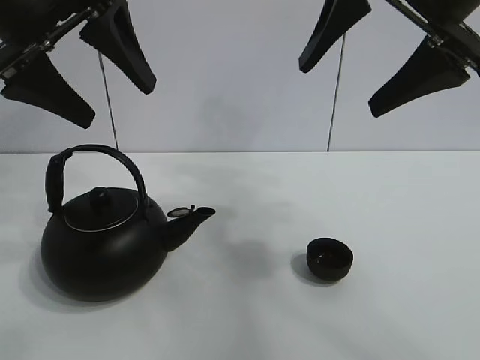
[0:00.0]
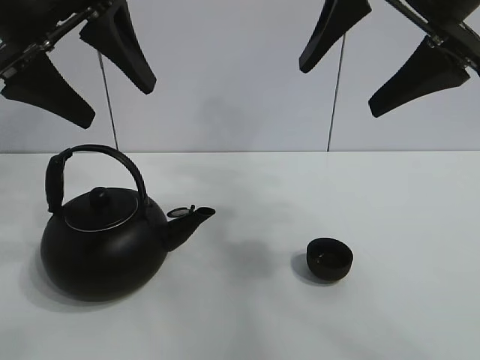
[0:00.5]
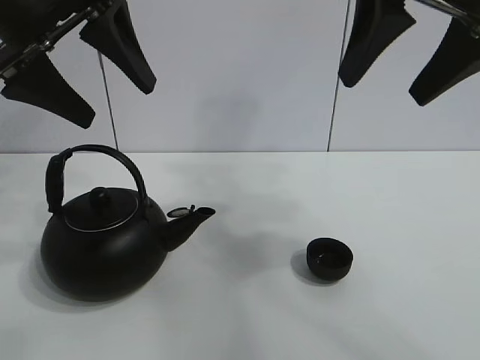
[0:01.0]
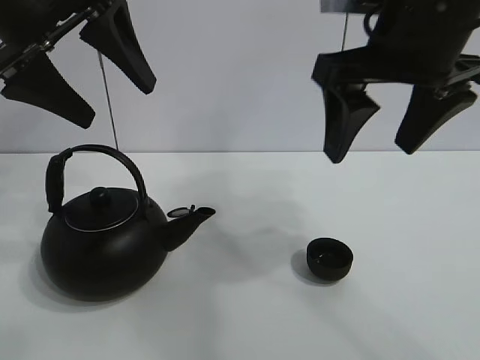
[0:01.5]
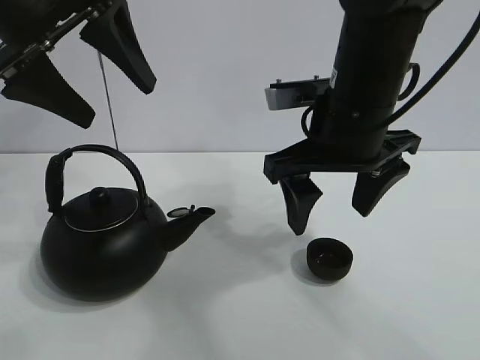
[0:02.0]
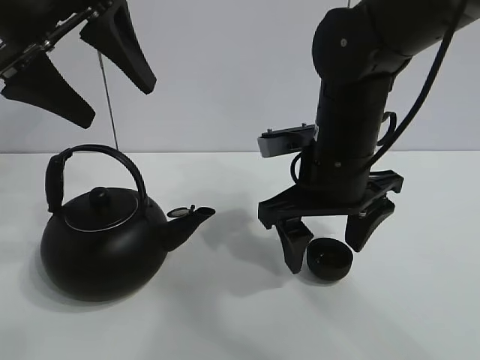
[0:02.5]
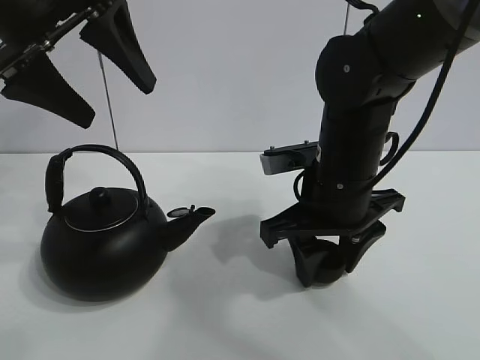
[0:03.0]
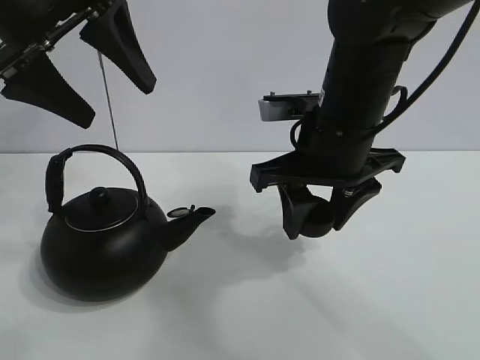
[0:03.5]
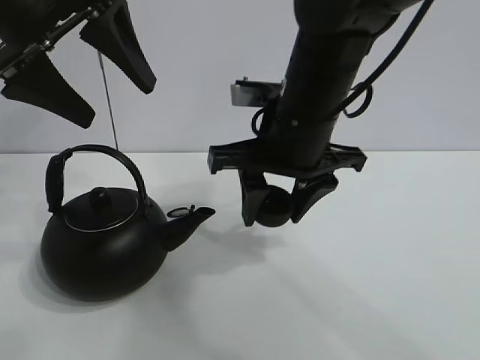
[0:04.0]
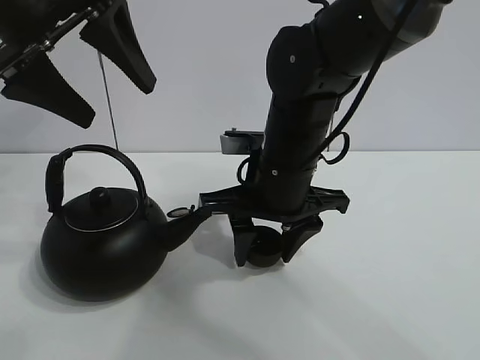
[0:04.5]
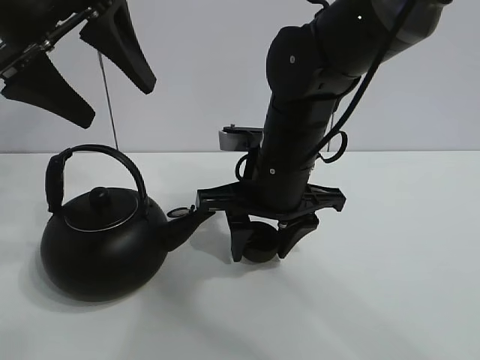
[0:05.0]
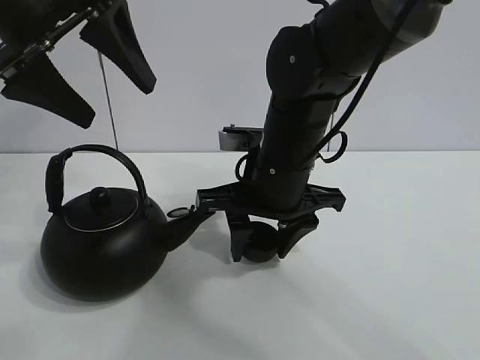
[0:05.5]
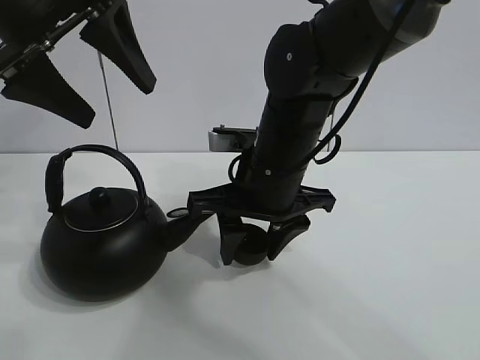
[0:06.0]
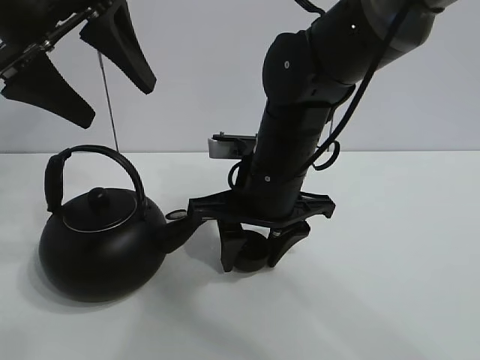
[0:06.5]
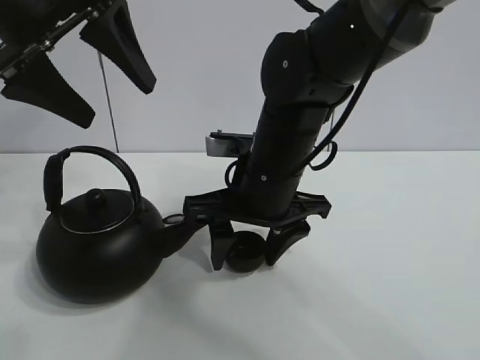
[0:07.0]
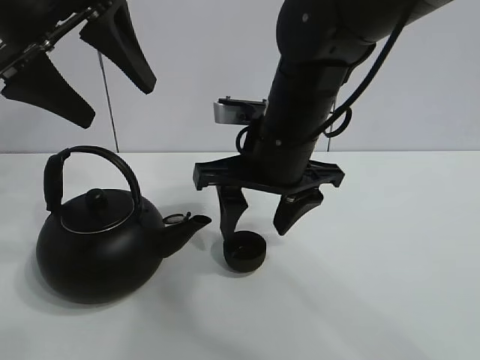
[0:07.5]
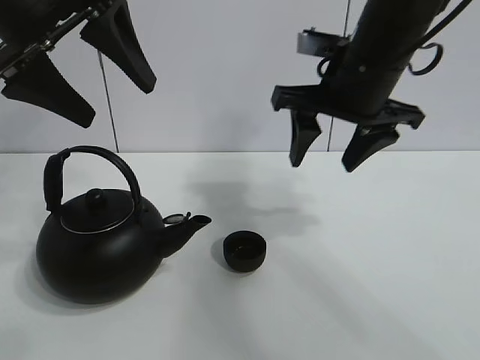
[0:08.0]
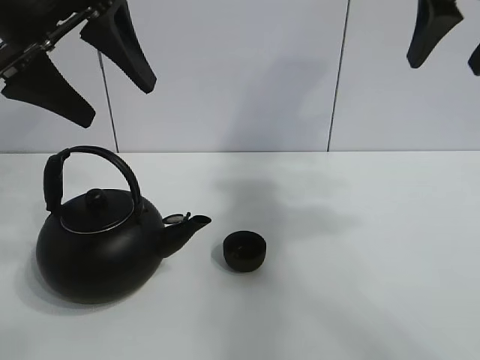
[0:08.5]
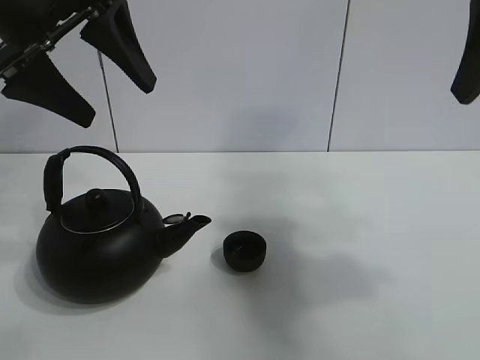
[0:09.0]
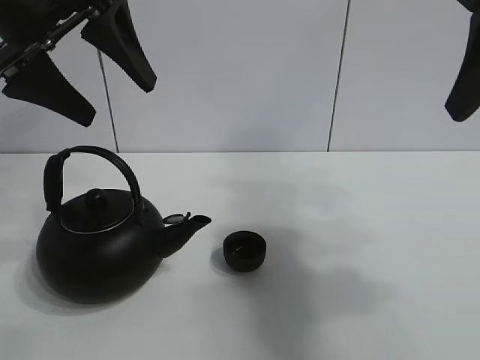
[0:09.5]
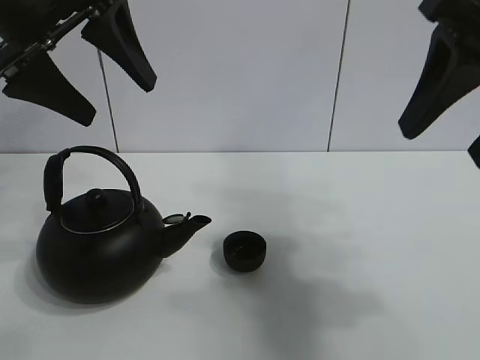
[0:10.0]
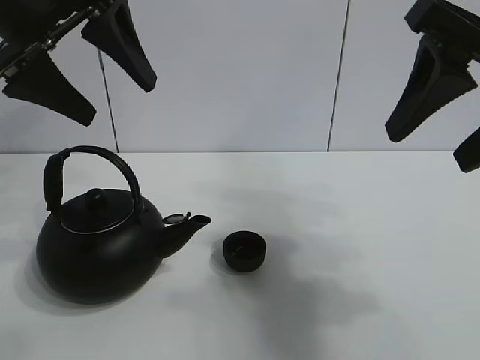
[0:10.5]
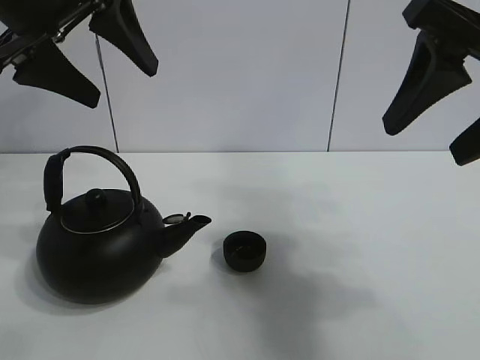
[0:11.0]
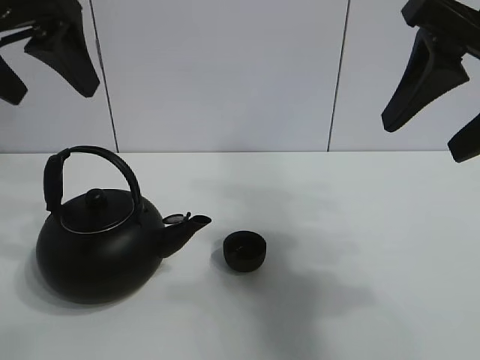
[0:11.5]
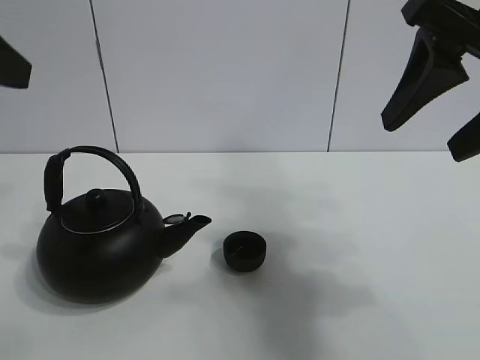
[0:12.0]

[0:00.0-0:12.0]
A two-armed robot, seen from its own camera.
Task of the whole recording: pour tea into the teacup.
Step, 0:00.0 to 0:03.0: Pick up the teacup with the right gripper.
Step, 0:03.5 to 0:07.0: Place the teacup in the center of view with the right gripper.
0:02.0 to 0:04.0: The right gripper closes up.
0:04.0 to 0:06.0: The right gripper travels downward by some 5 cm.
0:06.0 to 0:08.0: The right gripper travels upward and to the right by roughly 10 cm, and opens up.
0:08.0 to 0:10.0: The right gripper travels backward, to the right and upward by some 20 cm.
0:10.0 to 0:12.0: The left gripper is displaced backward and to the left by approximately 10 cm.

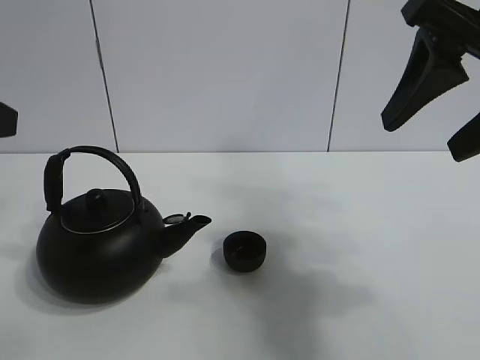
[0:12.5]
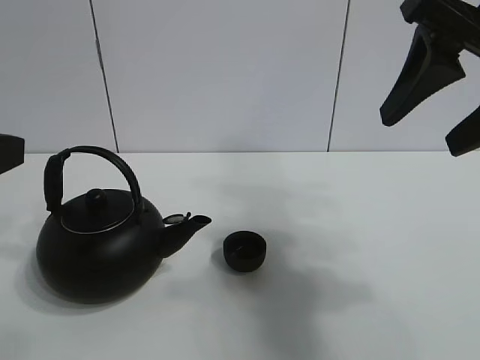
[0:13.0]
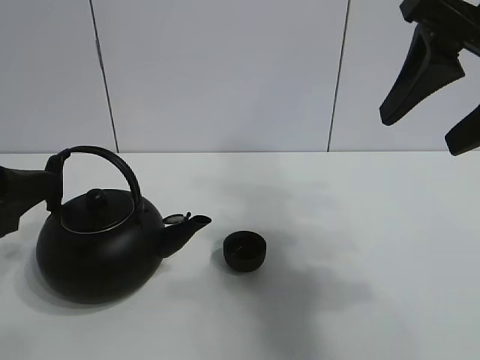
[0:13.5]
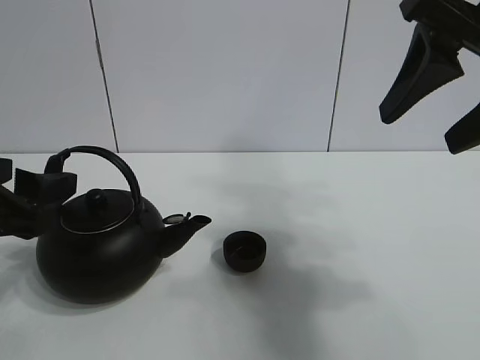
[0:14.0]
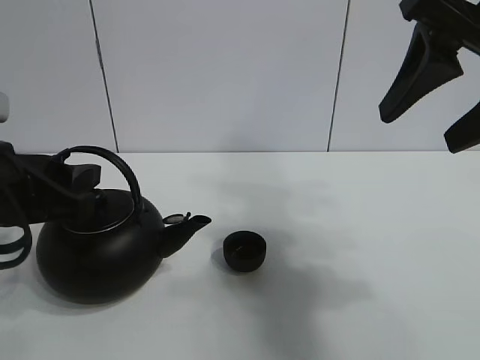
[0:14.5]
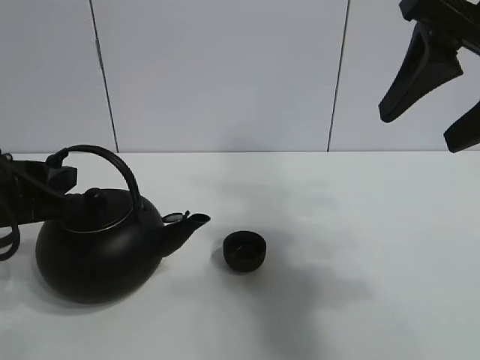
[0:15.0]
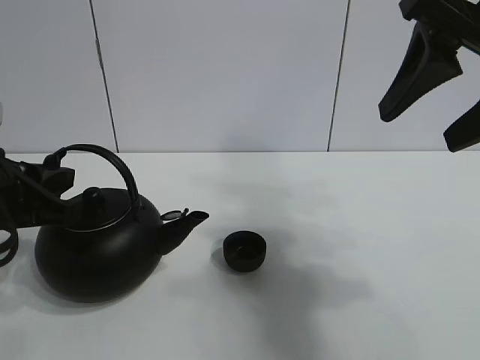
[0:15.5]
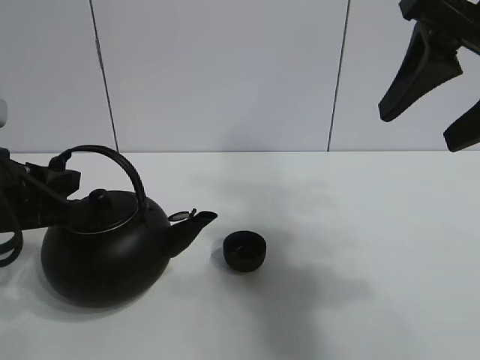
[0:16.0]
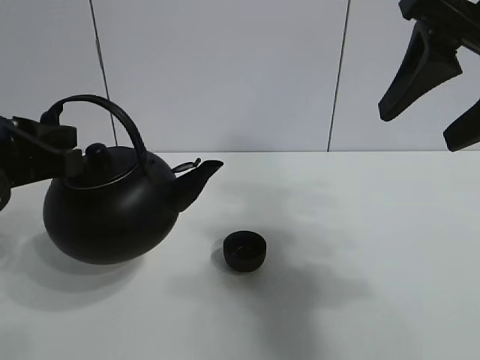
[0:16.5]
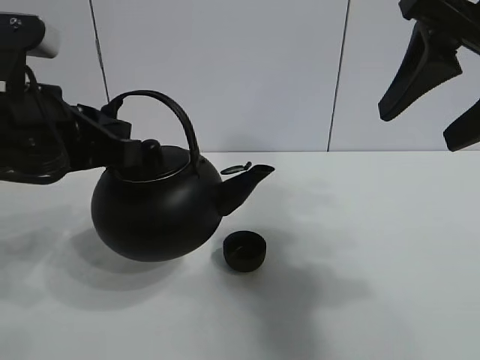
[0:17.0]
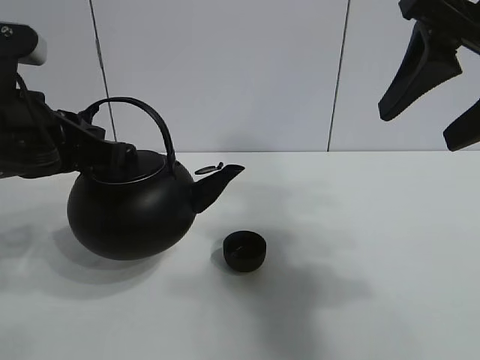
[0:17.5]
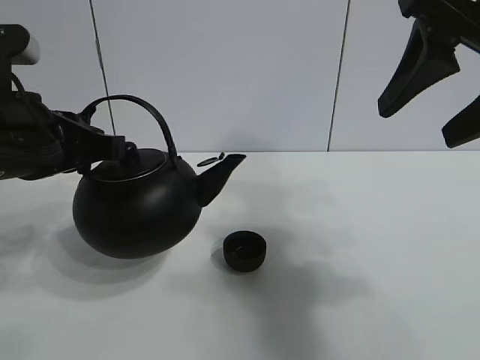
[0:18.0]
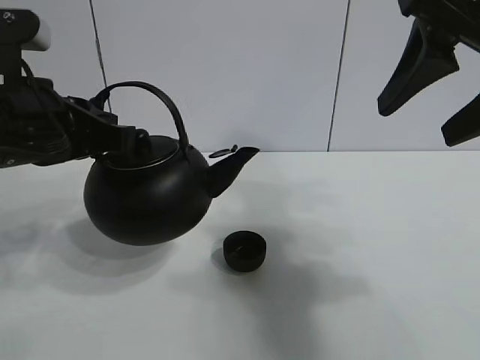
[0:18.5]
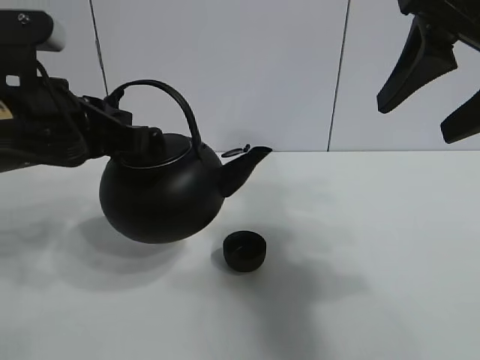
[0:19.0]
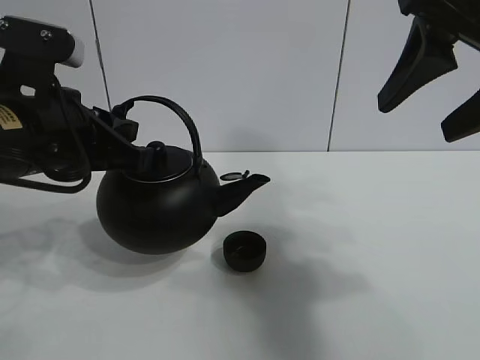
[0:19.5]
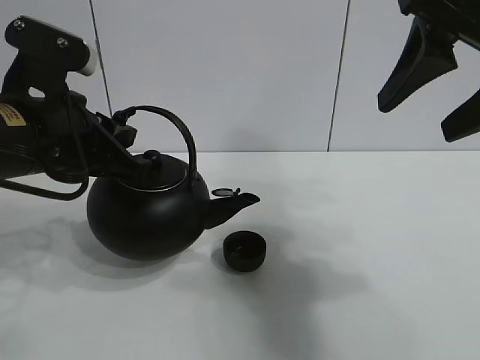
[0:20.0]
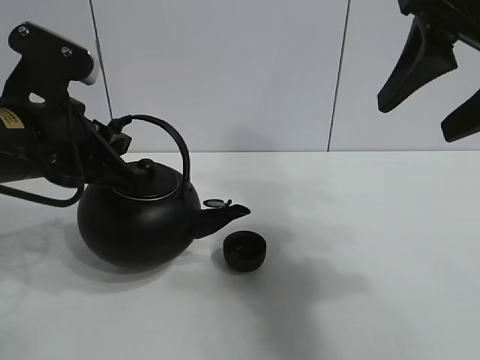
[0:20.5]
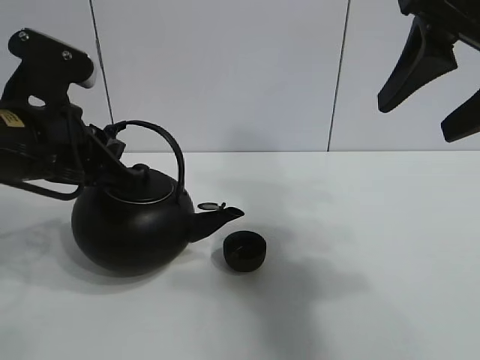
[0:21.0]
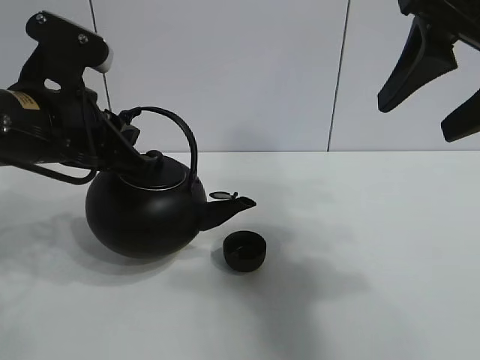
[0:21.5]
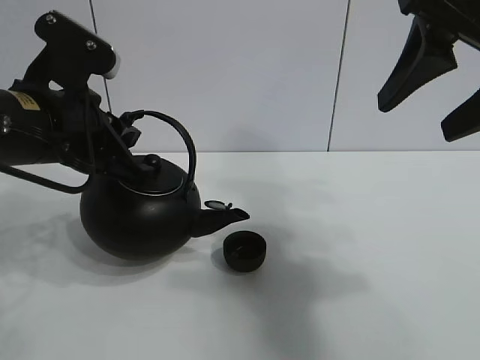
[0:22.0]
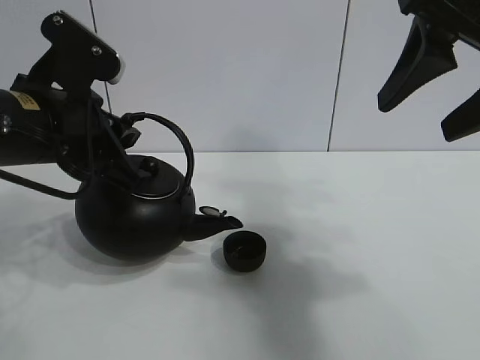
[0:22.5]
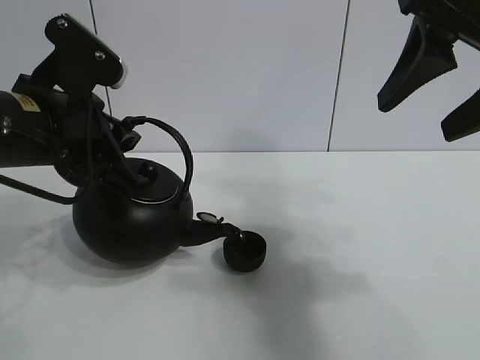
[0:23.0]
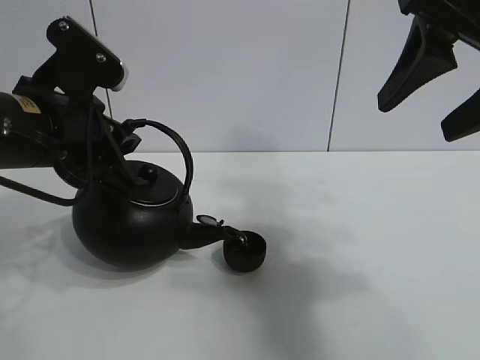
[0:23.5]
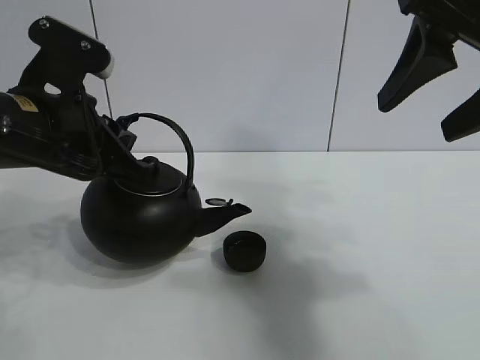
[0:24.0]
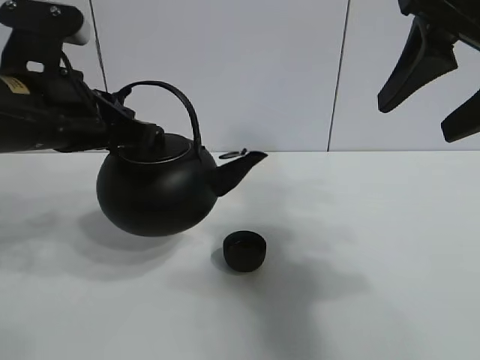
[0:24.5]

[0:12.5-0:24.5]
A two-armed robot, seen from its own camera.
Task of the whole recording: pour tea into the teacup.
Step, 0:12.5 to 0:16.0: Pick up the teapot with the left gripper.
Step, 0:16.5 to 0:24.0: Pour tea into the teacup with the left gripper.
0:12.5 to 0:14.5: The left gripper moves downward, about 10 cm.
0:14.5 to 0:16.5: The left gripper closes its fingers.
0:16.5 to 0:18.5: The grippers stay close to where they were, moving slightly.
0:18.5 to 0:20.5: The grippers make only small movements.
0:20.5 to 0:22.5: The grippers make only small movements.

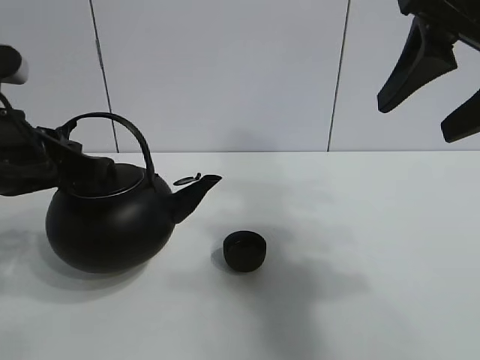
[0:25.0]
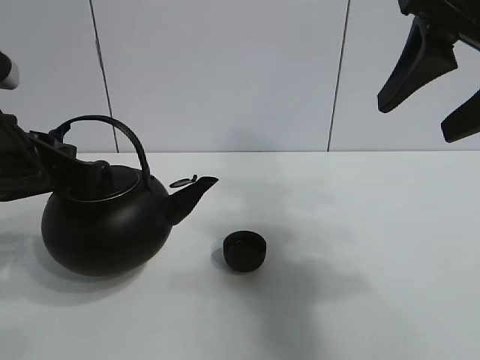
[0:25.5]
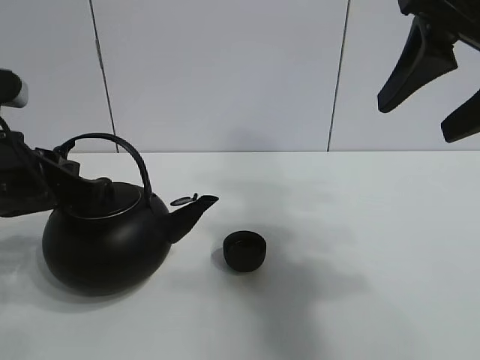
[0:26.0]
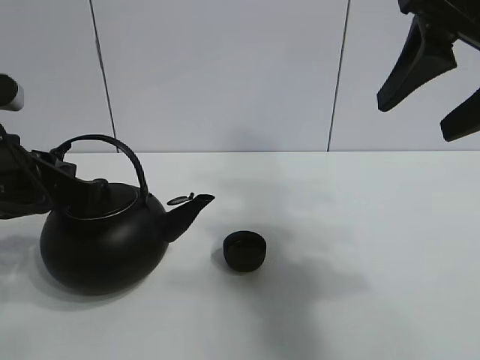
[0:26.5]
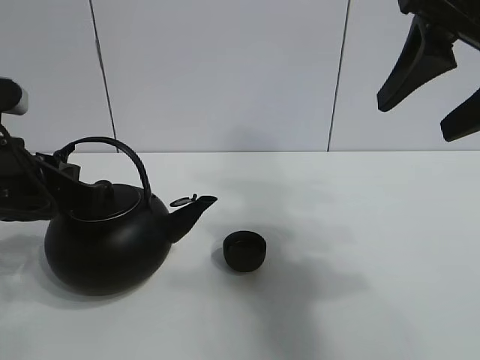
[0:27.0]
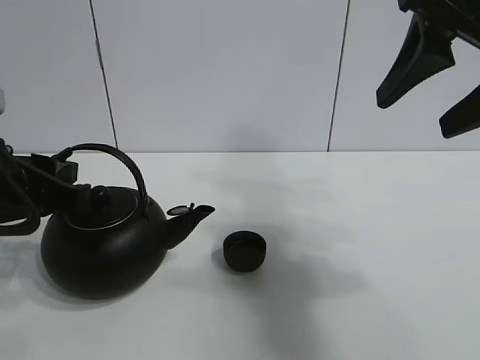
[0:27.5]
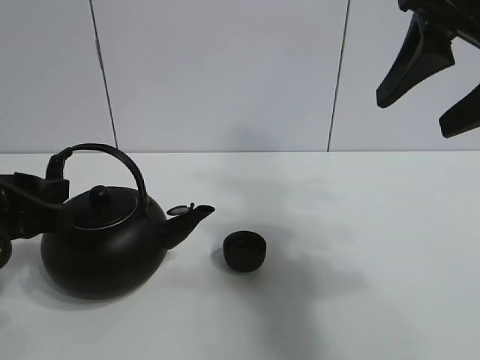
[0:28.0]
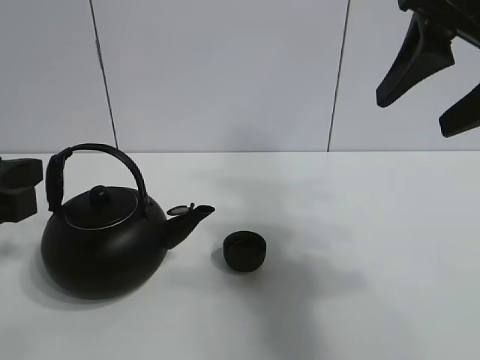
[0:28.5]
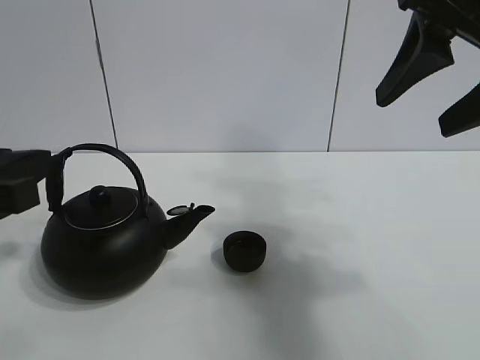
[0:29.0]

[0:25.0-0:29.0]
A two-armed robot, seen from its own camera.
Task of the whole recording: pour tea into the teacup.
0:25.0 to 0:27.0: The grippers move only a little.
0:27.0 to 0:29.0: The left gripper heads backward, covering roughly 5 cm, and opens.
